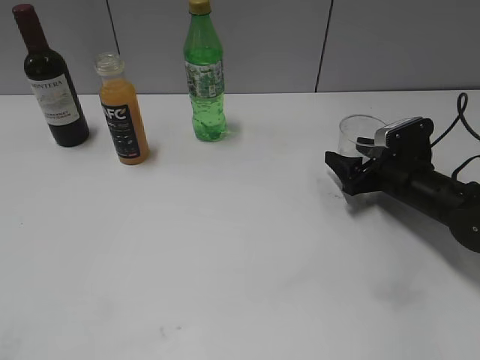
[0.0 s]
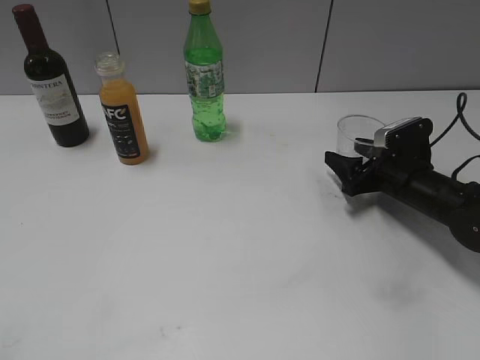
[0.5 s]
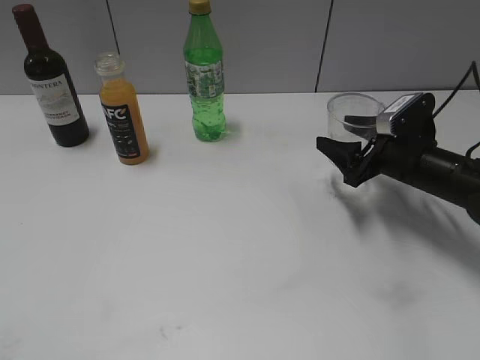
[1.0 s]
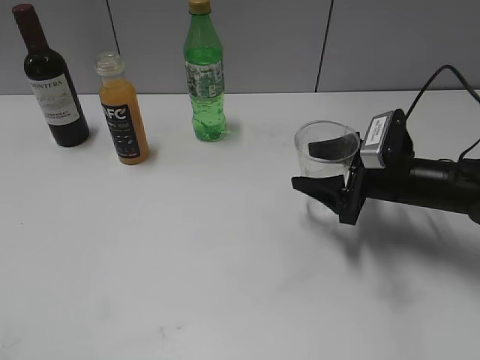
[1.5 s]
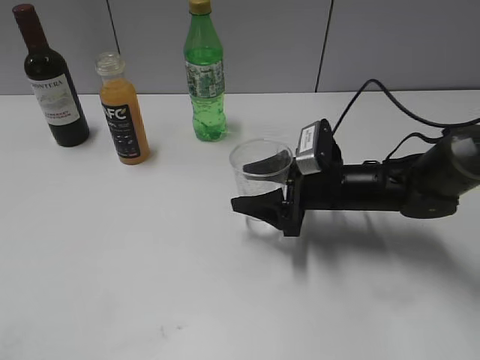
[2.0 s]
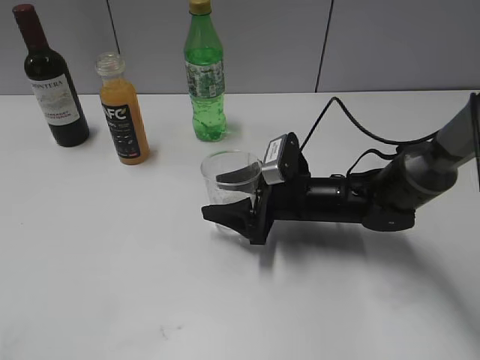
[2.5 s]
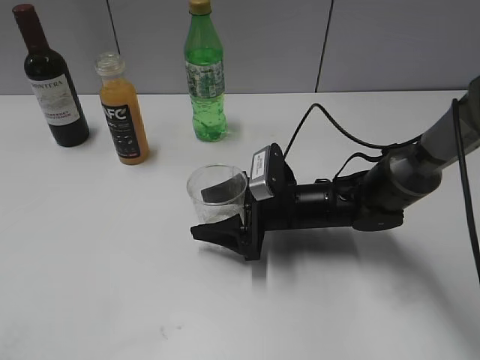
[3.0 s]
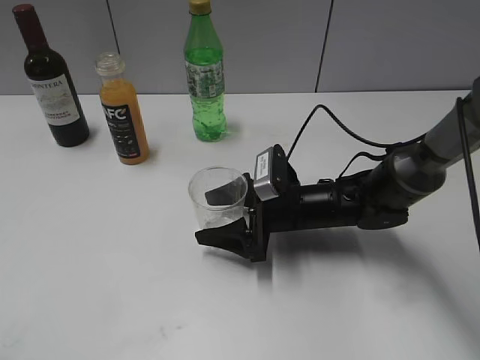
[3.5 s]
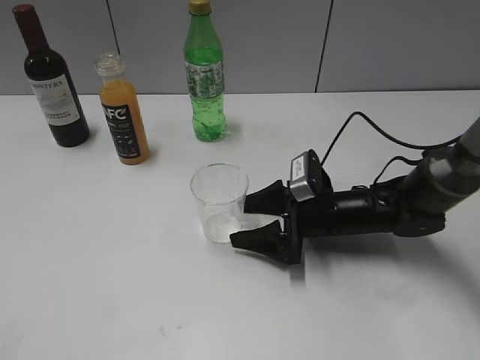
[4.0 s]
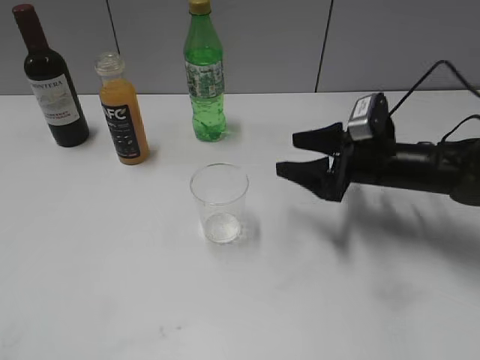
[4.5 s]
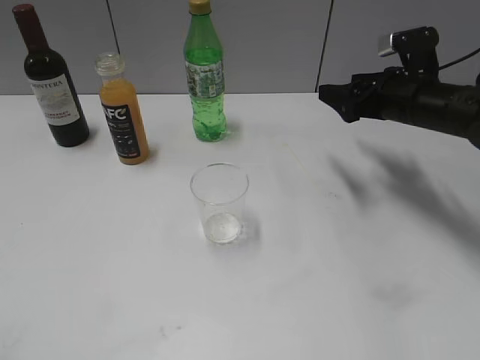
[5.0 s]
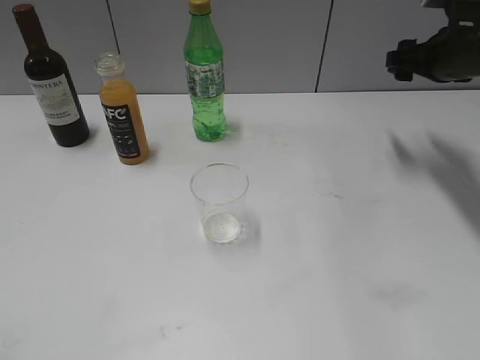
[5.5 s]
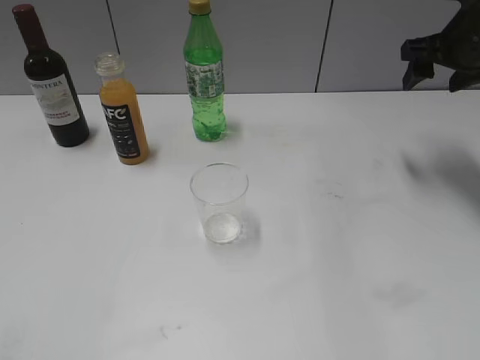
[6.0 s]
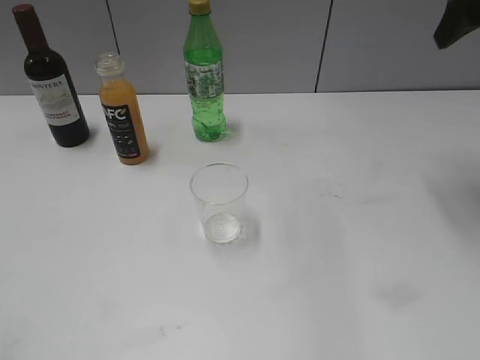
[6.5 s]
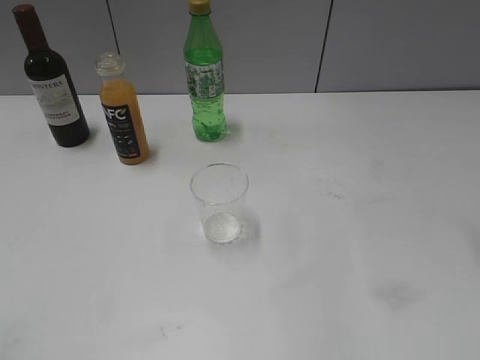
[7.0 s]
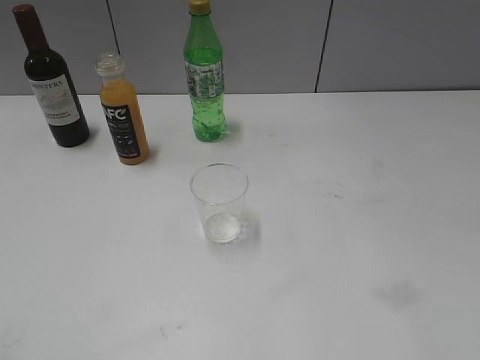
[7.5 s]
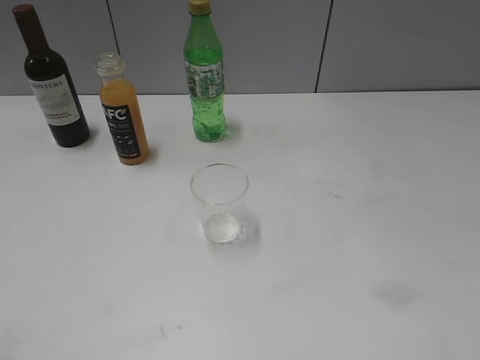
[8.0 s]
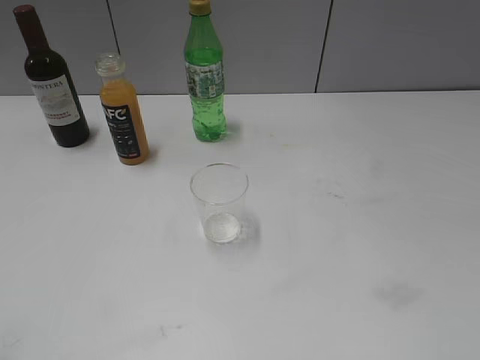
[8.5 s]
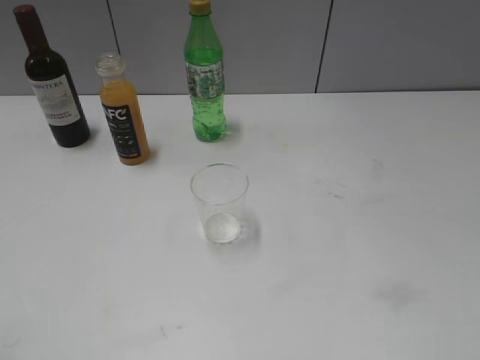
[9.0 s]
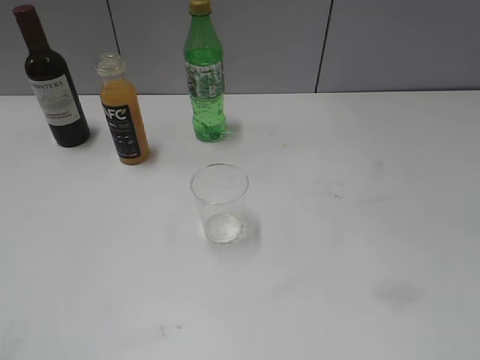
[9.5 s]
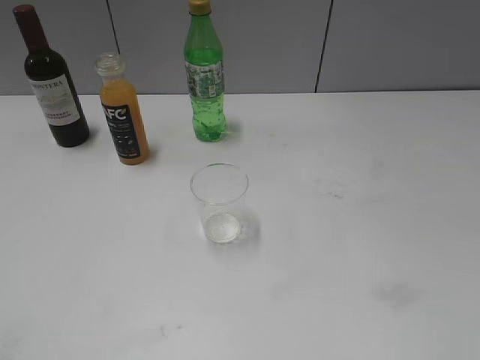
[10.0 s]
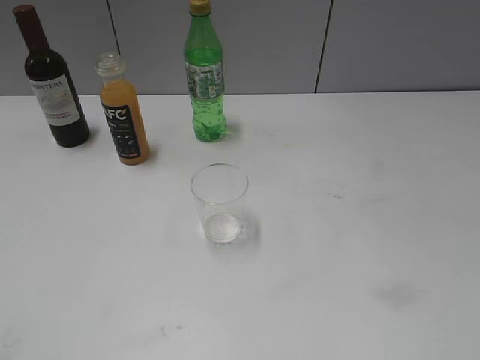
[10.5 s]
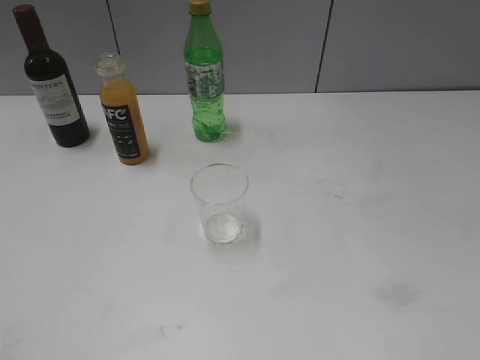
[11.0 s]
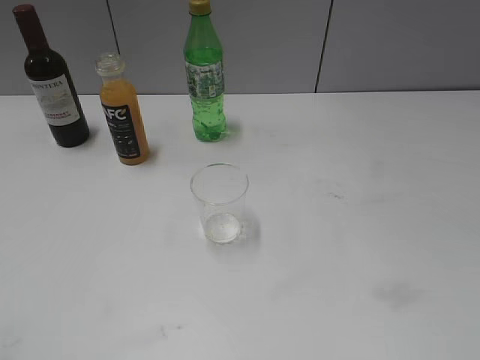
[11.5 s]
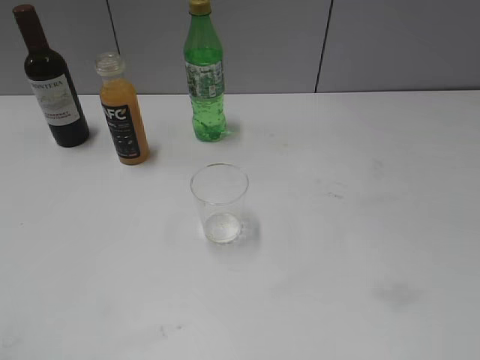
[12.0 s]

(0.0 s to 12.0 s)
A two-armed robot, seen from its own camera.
Step, 1.0 s - 4.0 s: Place the transparent cup on the table with right gripper.
0.0 s - 2.0 s: The right gripper shifts approximately 10 cm to the left, and closes its fingers.
2.0 s - 4.0 s: The right gripper opens.
4.0 s - 6.0 s: The right gripper shifts roughly 30 cm upward, to the right and forward, and closes.
6.0 s - 8.0 s: The right gripper moves backward, approximately 35 cm.

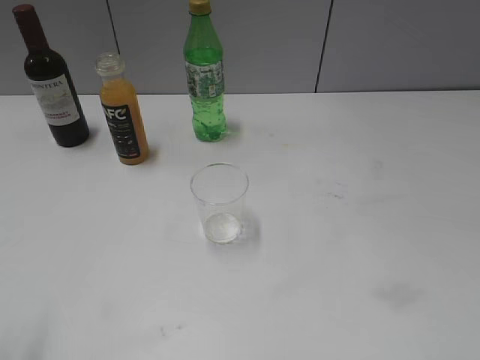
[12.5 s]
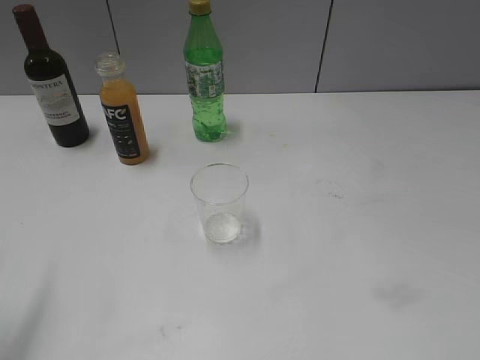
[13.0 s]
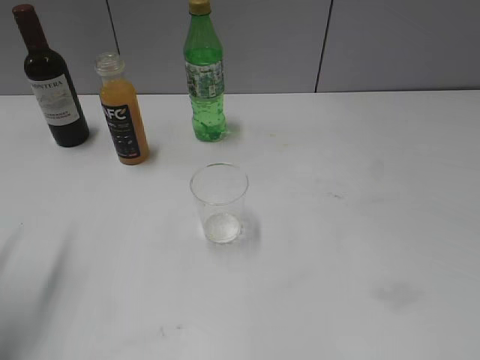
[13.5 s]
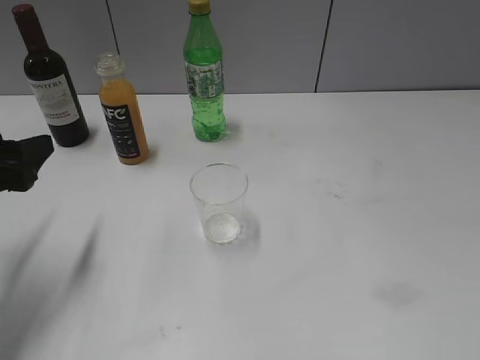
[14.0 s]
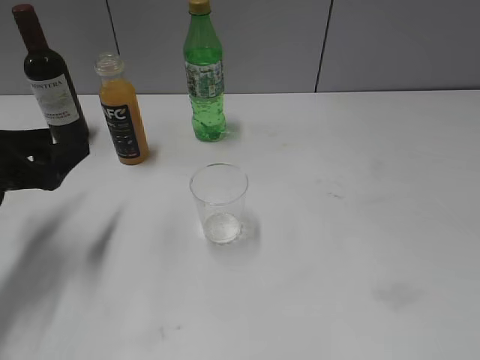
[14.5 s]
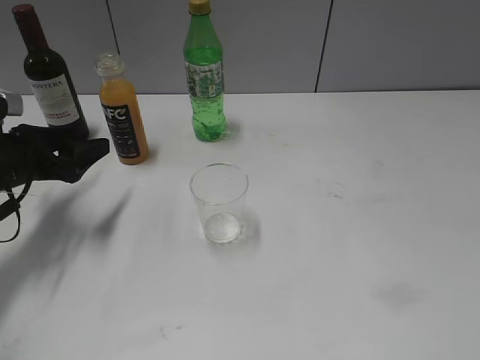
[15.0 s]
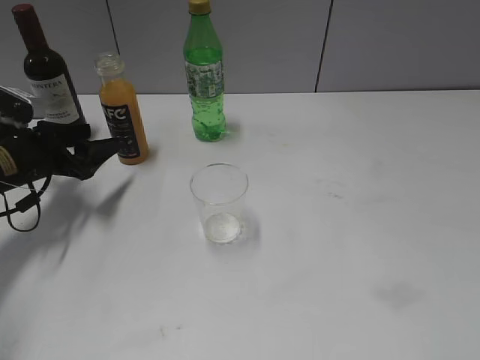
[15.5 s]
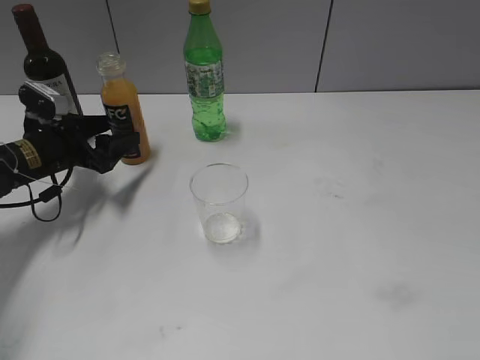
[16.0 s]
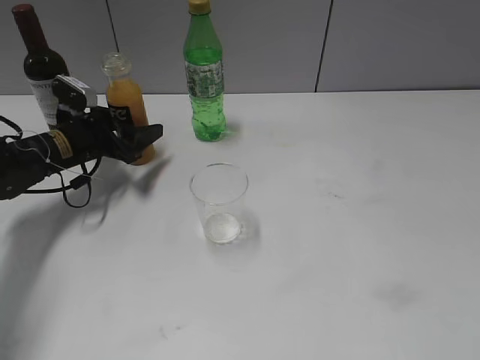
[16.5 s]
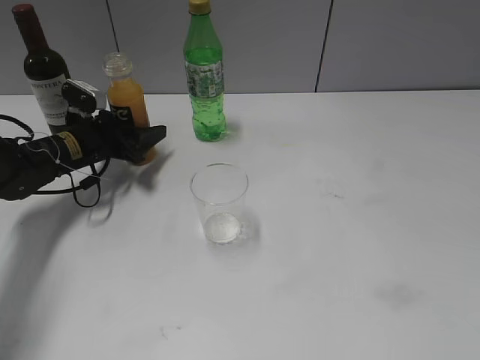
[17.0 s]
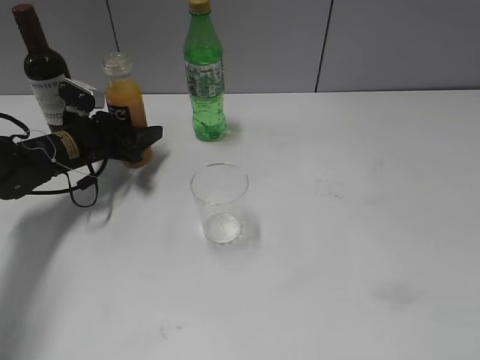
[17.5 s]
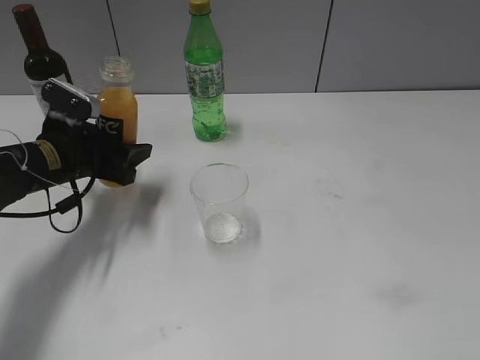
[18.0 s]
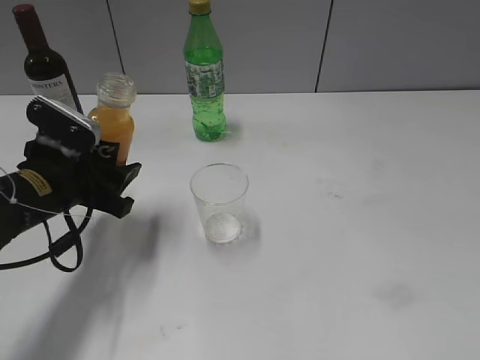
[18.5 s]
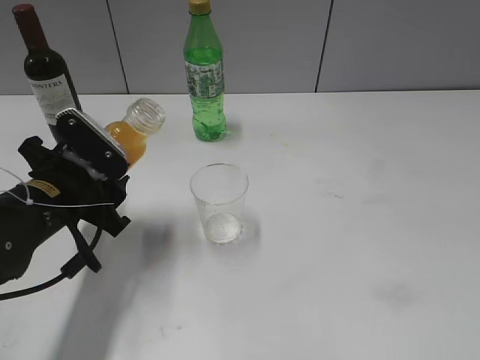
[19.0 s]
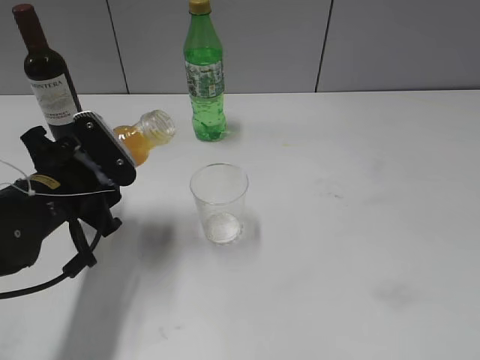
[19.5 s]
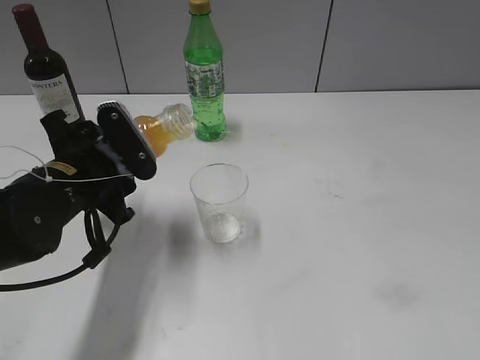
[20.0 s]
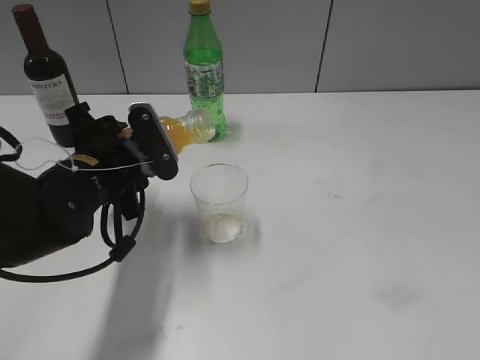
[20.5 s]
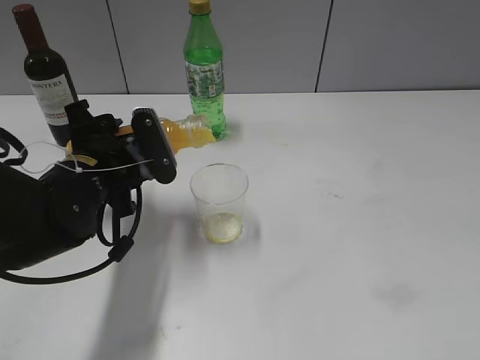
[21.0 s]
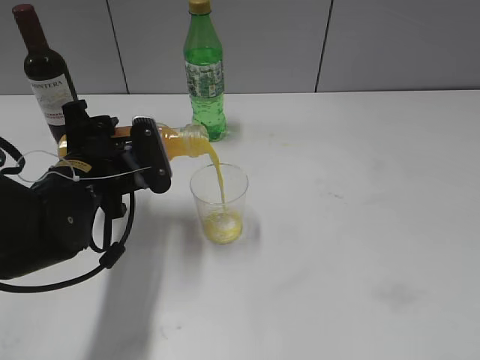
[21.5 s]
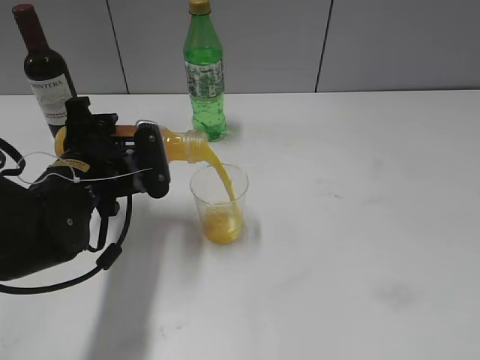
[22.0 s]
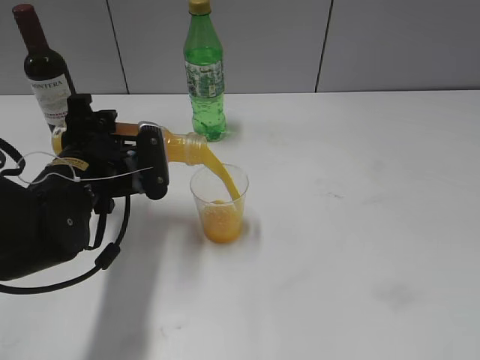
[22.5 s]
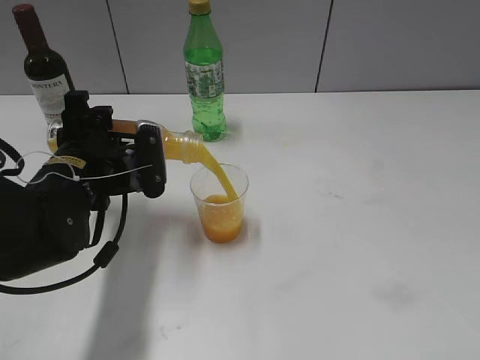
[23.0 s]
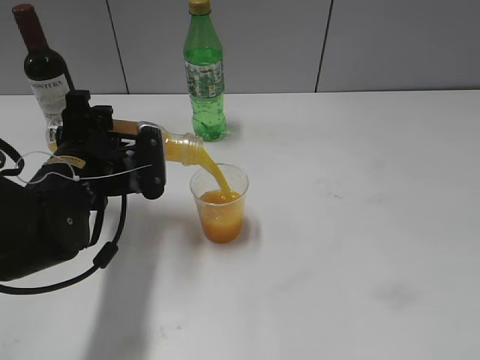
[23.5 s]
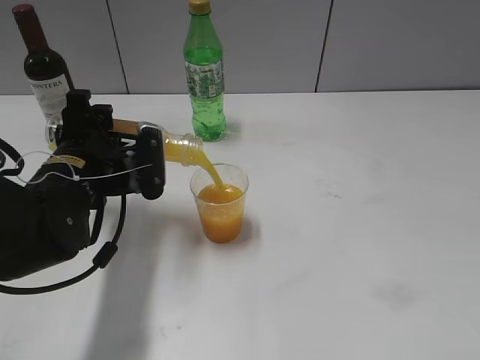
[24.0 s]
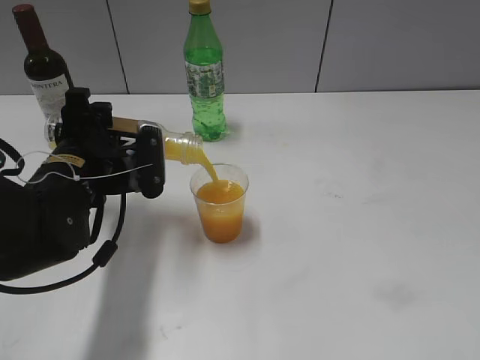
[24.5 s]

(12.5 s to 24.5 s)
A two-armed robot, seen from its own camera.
Step, 12.5 s - 17.0 s: Grasp the bottle with orange juice with left gripper.
12.5 s - 14.5 s: The left gripper heads forward and downward, covering some 25 cm.
14.5 s - 16.5 s: The left gripper travels forward and downward by approximately 15 cm.
16.5 s - 18.5 s: The left gripper travels backward by some 15 cm, and closes its fingers.
18.5 s - 20.5 s: The left gripper is displaced to the right by approximately 5 cm.
22.5 s - 24.5 s: The grippers make only small movements.

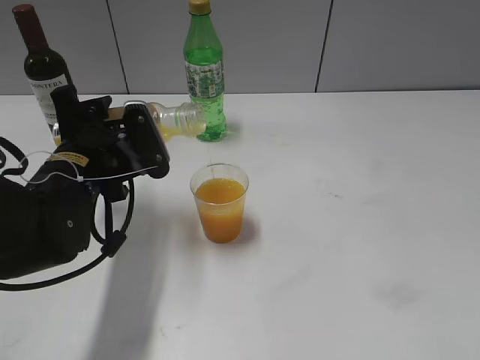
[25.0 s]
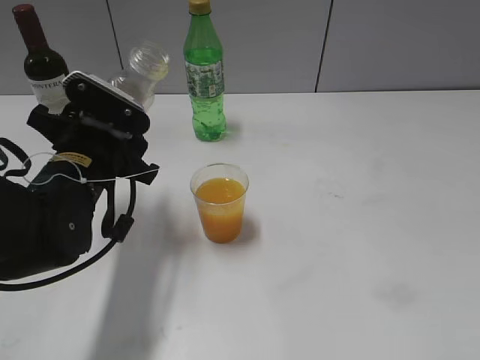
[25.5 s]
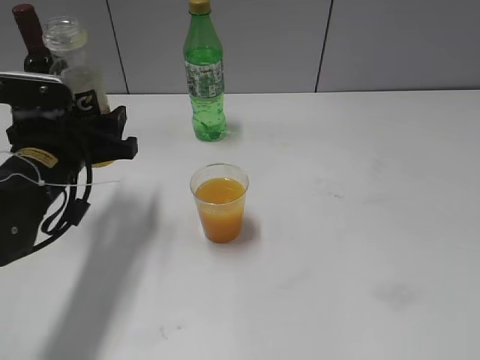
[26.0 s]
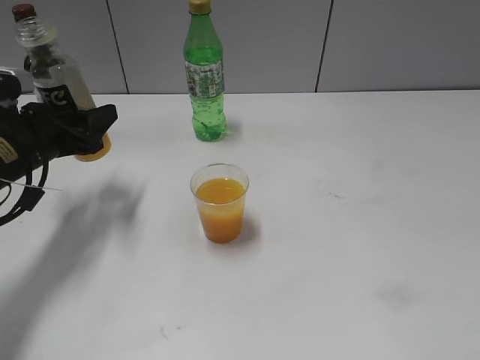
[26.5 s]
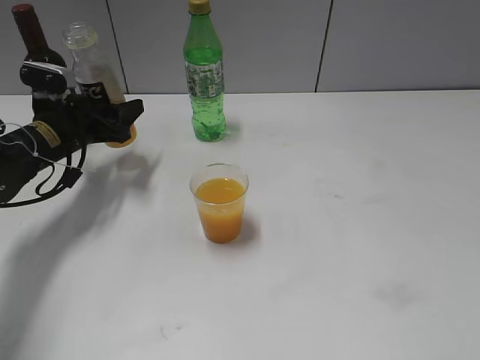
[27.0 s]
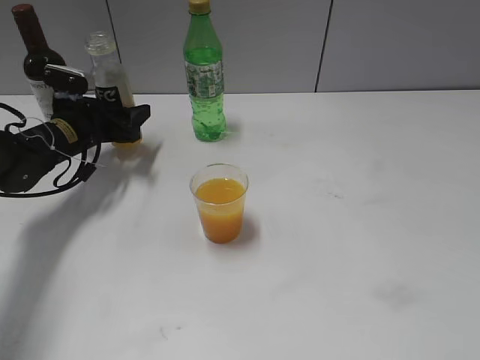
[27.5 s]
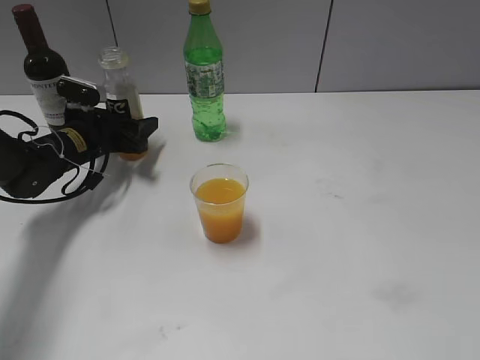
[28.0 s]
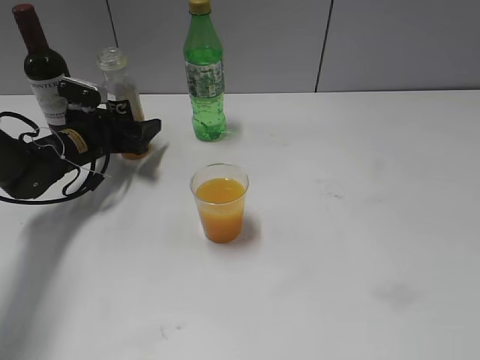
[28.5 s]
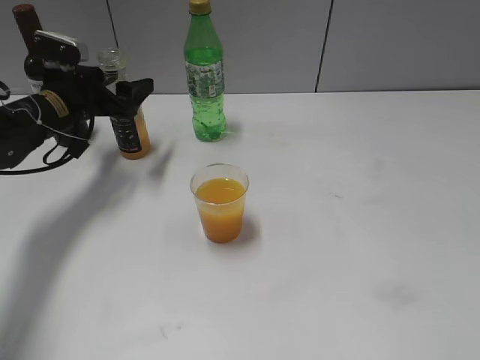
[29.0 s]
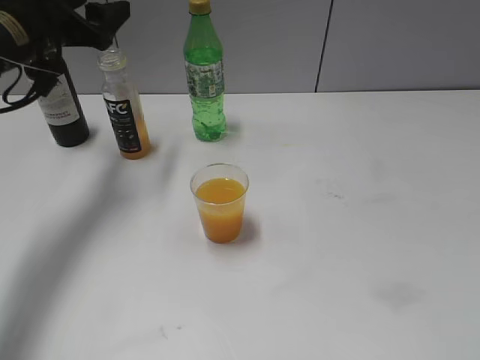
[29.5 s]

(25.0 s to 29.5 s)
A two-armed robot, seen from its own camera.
Step, 25.5 s - 28.5 s: Place the orange juice bottle on the table with left gripper.
25.0 s - 27.0 s: The left gripper is displaced forward and to the left by approximately 15 cm.
27.0 s - 29.5 s: The left gripper is displaced upward by some 15 cm, and opens up.
